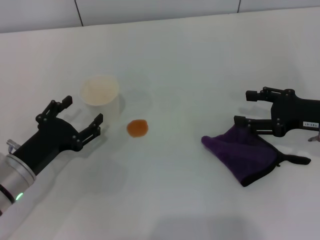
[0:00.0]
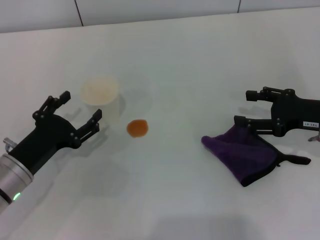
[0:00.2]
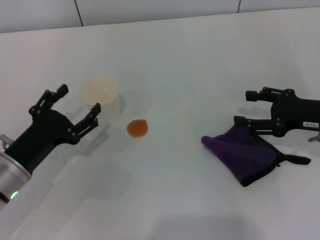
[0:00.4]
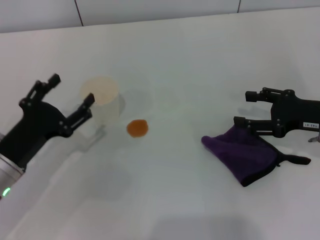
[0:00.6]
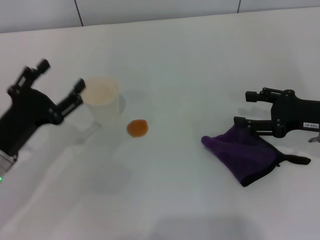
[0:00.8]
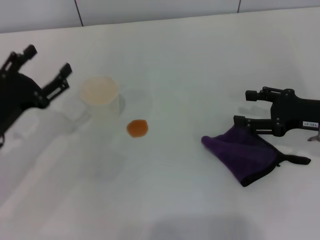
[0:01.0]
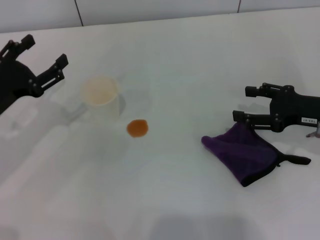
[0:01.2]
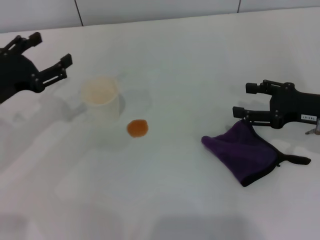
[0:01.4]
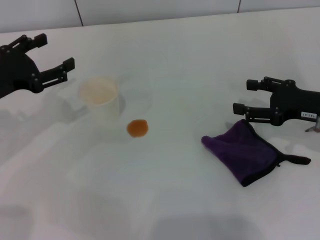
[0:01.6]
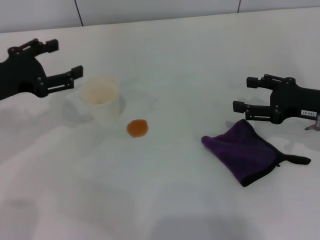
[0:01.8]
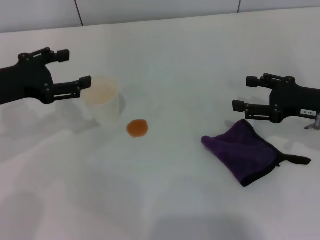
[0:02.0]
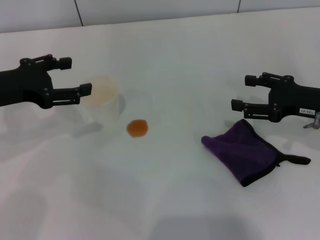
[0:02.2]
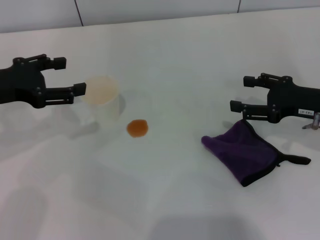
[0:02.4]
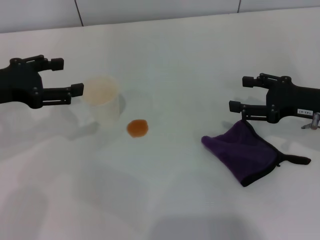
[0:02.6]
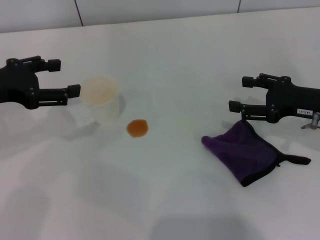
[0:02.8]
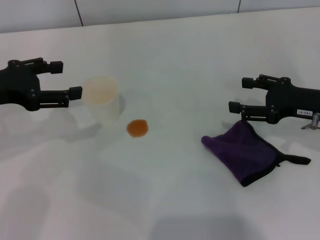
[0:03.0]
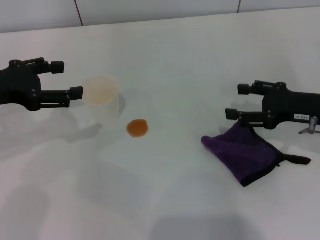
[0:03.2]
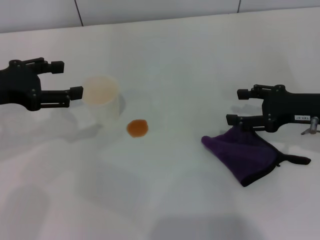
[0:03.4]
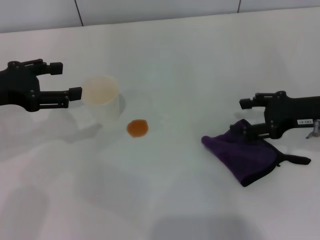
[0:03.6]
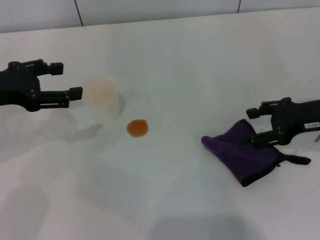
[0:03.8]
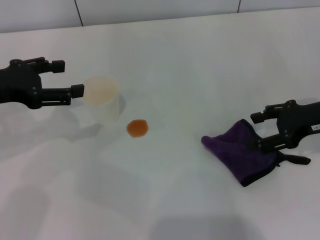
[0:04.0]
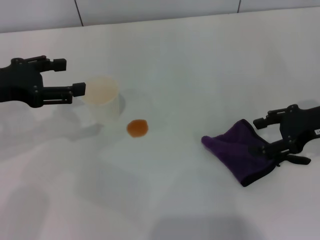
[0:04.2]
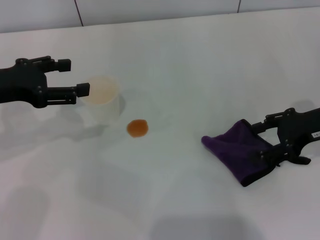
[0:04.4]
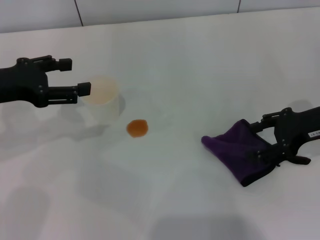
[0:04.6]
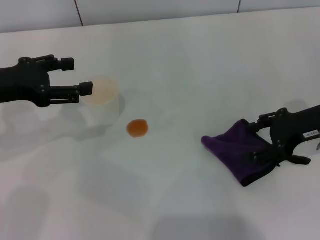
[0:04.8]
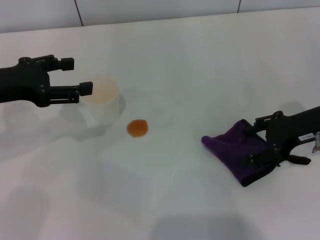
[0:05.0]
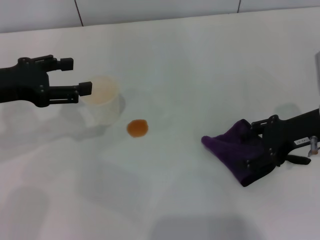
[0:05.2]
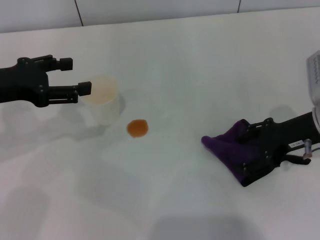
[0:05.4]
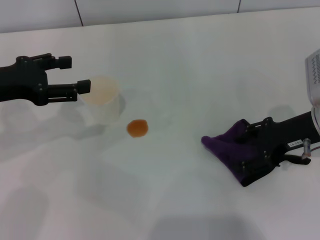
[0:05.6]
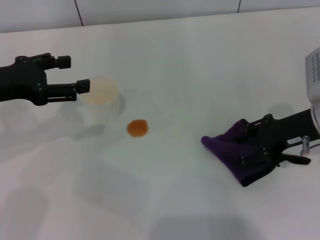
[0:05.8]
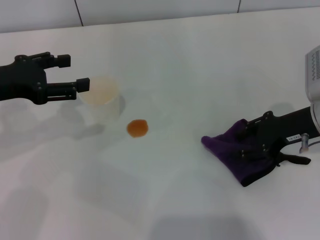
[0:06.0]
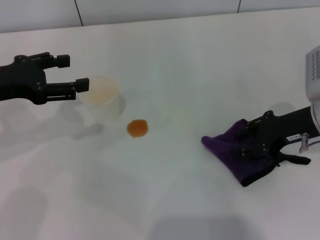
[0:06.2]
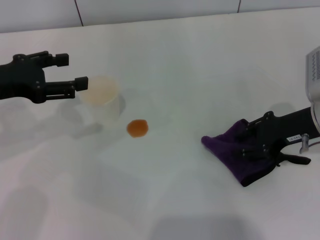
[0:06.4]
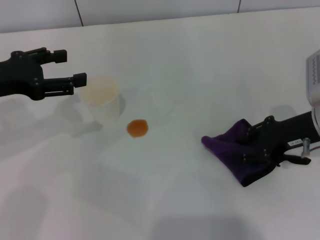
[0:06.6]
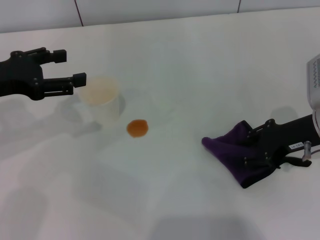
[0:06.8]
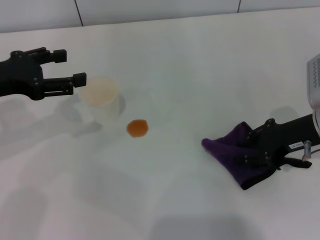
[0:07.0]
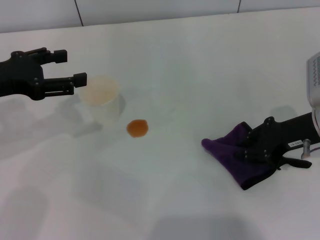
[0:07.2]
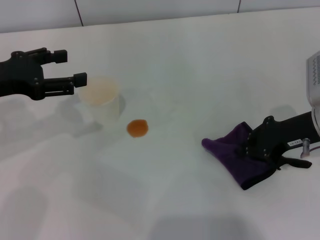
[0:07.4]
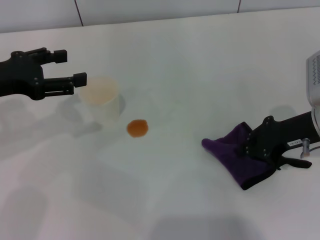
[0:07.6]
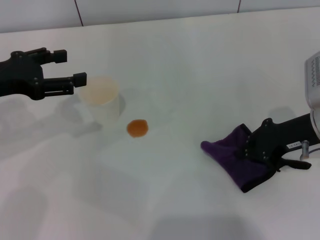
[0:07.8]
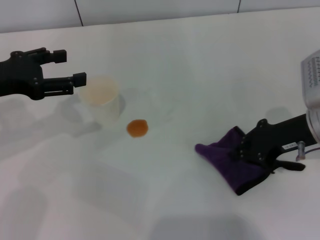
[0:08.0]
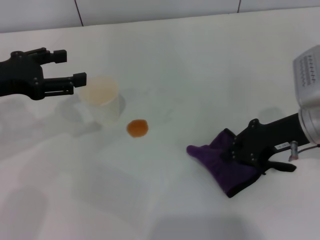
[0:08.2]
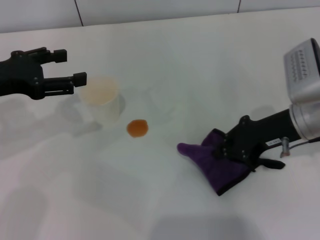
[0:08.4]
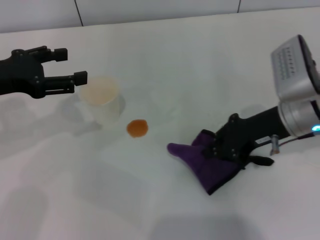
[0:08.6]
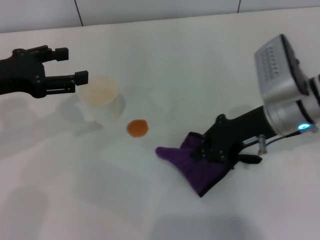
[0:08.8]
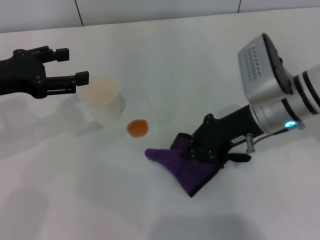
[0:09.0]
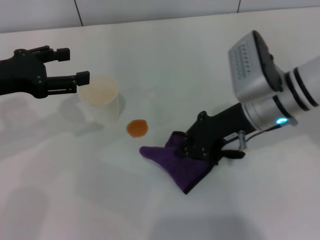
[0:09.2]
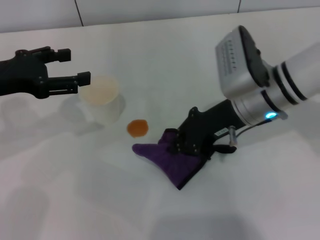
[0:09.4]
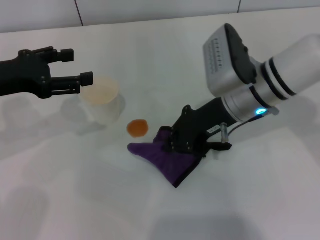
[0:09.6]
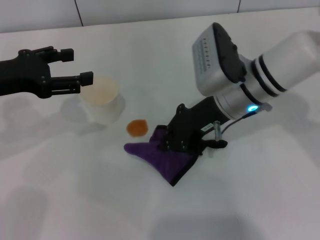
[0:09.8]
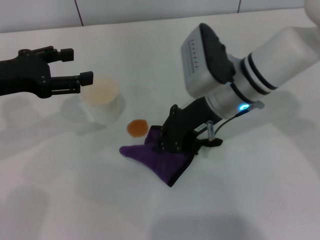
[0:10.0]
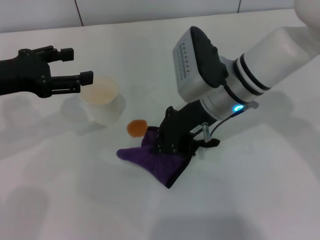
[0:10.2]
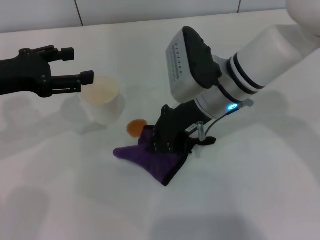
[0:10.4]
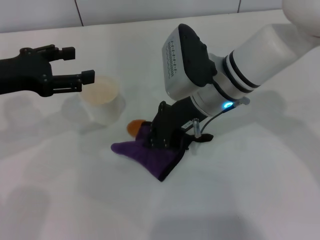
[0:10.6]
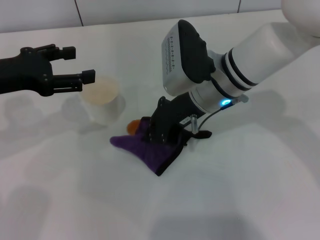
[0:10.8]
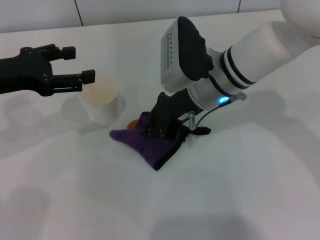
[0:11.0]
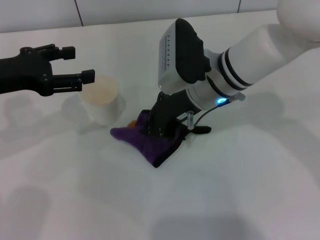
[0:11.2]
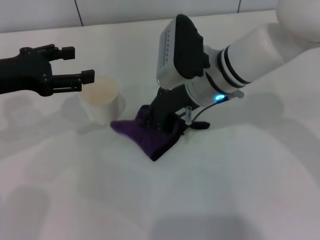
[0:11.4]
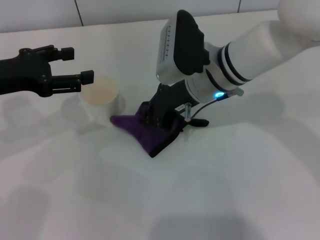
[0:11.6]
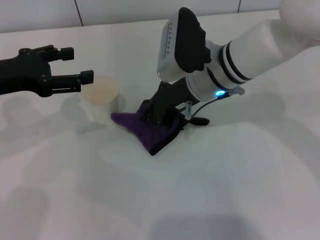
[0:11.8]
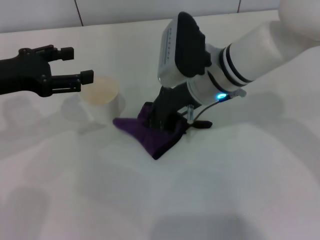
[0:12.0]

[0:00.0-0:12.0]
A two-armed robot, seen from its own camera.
Step, 0:00.0 to 0:07.2: Grasp the rag with the right gripper.
0:00.0 to 0:01.6: The left gripper moves upward and forward, about 15 cm.
0:04.4 to 0:06.0: There are only small adjustments of the grippers.
0:06.0 to 0:07.6: The right gripper closes up.
0:07.6 to 0:09.0: The right gripper travels to the left by roughly 10 cm.
0:09.0 to 0:10.4: The right gripper heads to the left, covering about 10 cm.
0:10.4 to 0:12.0: There are only small adjustments of the grippers.

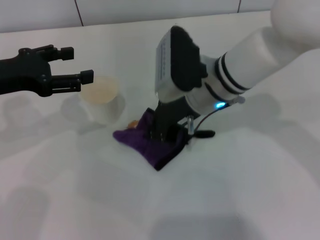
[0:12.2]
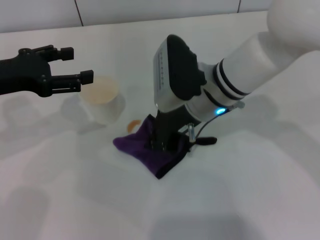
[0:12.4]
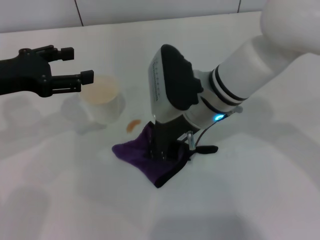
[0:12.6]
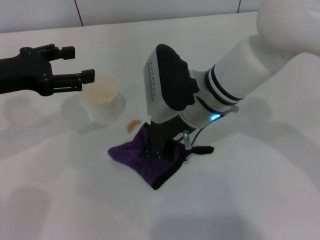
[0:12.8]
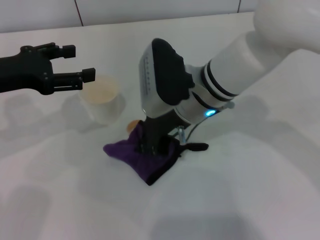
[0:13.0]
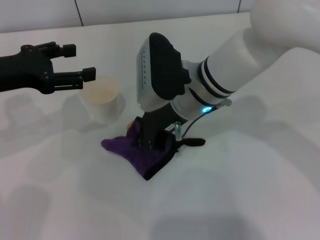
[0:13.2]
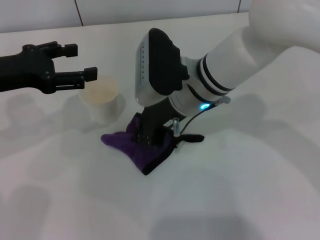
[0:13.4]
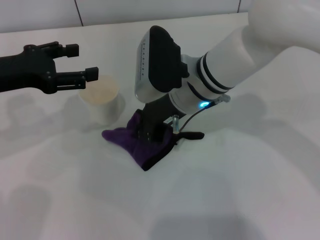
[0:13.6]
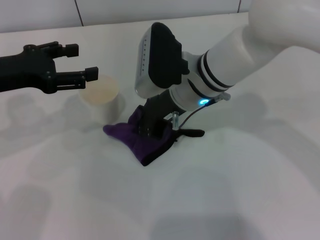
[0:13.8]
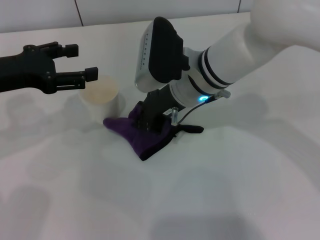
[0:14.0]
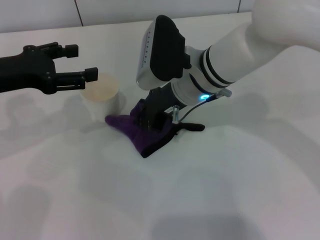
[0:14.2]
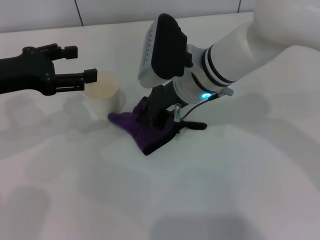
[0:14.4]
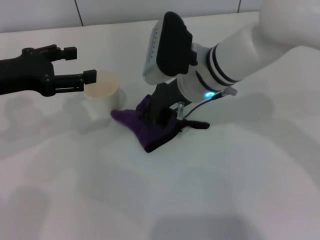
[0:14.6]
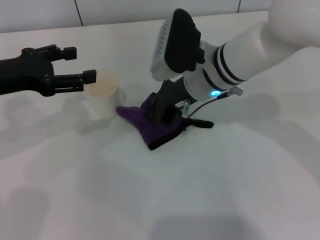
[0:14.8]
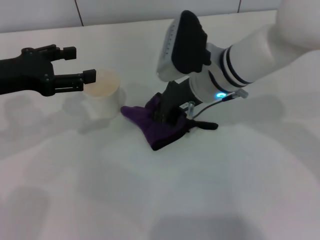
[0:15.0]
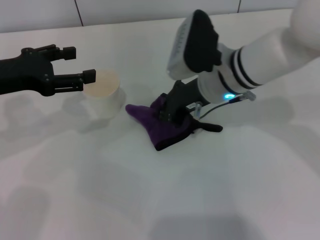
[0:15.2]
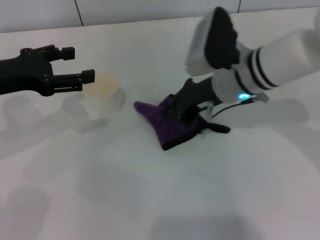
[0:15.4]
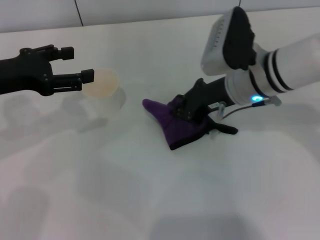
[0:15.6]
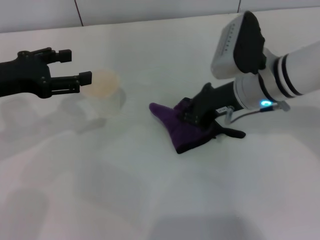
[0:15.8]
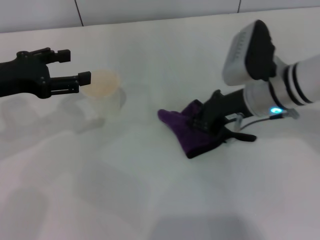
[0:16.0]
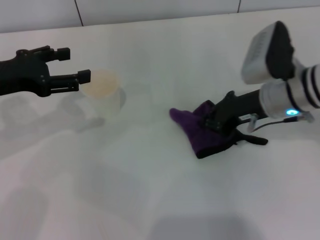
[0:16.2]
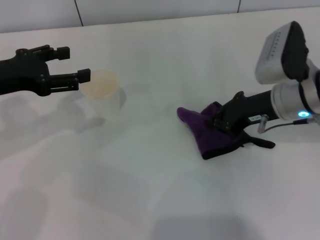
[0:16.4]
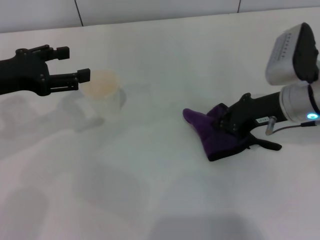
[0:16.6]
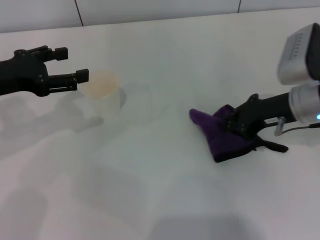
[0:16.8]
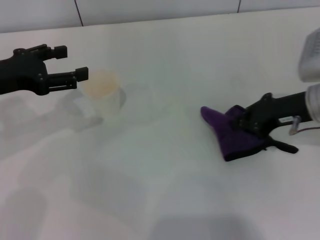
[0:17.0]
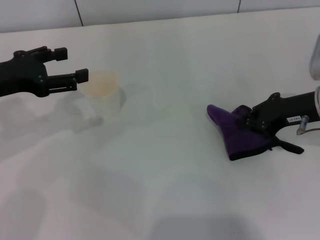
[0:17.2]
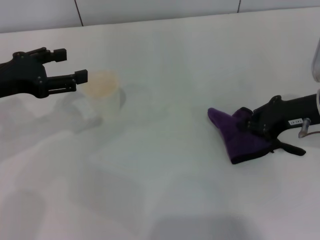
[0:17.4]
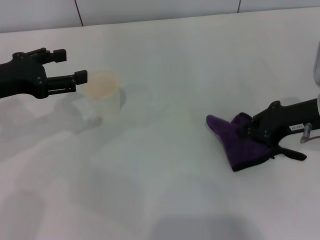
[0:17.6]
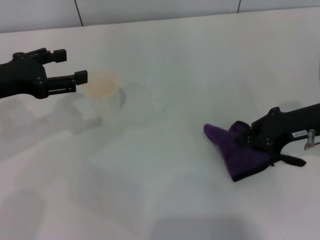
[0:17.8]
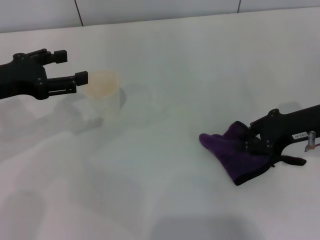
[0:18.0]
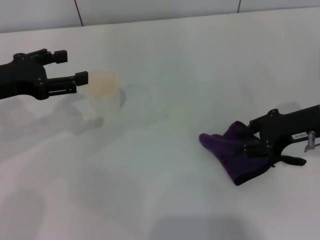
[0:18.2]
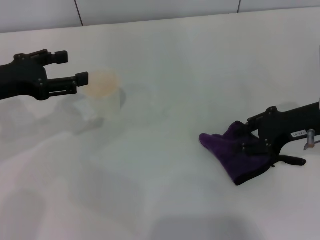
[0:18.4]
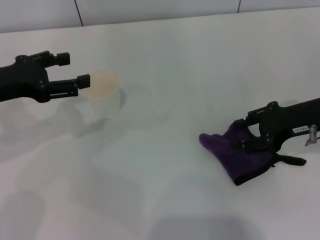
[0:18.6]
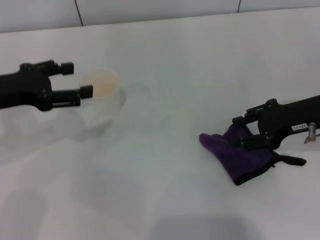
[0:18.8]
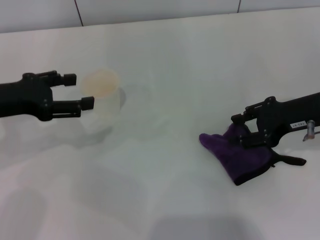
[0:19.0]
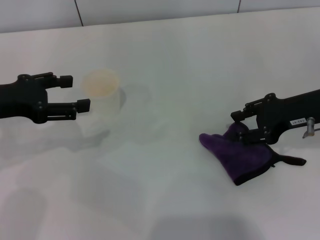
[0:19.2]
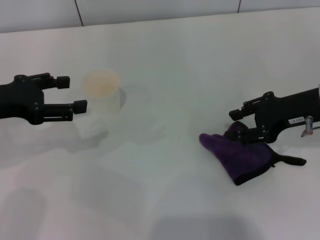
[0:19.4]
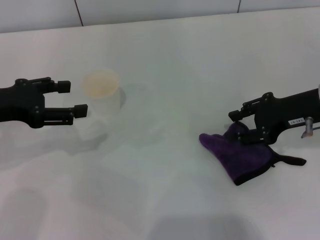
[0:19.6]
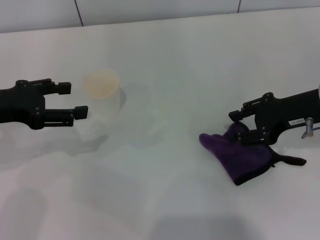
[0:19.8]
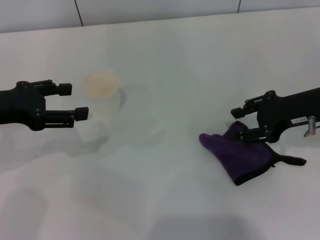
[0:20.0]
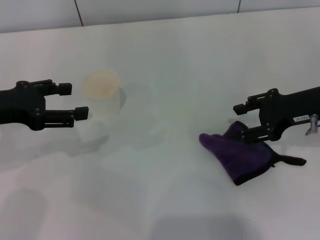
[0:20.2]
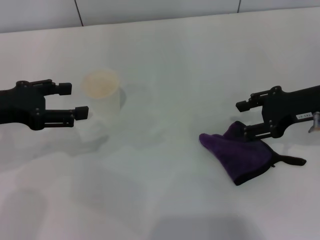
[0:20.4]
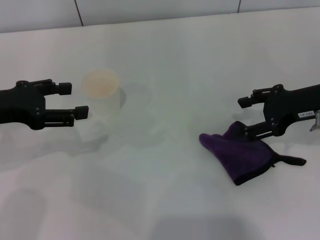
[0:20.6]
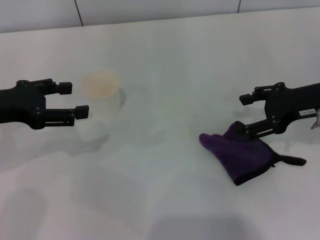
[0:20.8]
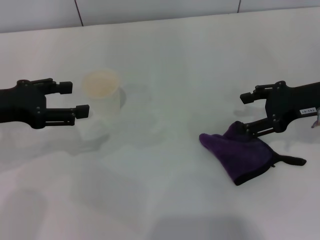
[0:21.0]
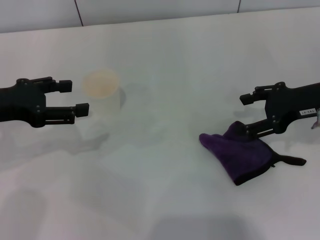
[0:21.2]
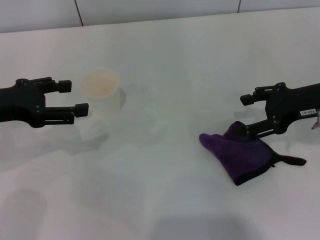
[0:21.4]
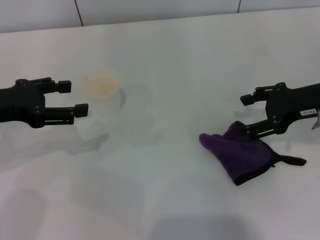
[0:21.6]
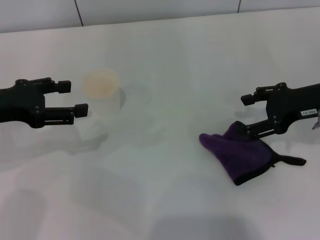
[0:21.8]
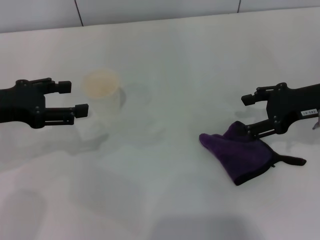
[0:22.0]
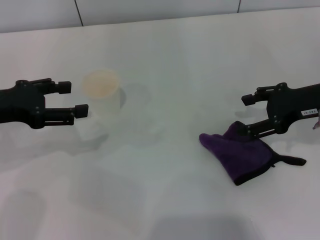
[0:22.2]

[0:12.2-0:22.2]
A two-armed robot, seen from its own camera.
Step, 0:12.2 to 0:15.4: Wipe the stains off the table with the right gripper.
Step, 0:15.8 to 0:19.0: Place the rag on the table with the right gripper.
0:12.2 to 0:15.0: There are only small adjustments of the grippers.
0:15.0 to 0:16.4: The right gripper goes about 10 cm to the right.
0:16.4 to 0:18.0: The right gripper goes roughly 5 cm to the right.
0:18.0 to 0:19.4: The right gripper opens.
0:19.4 to 0:20.8: The right gripper opens.
0:20.8 to 0:22.2: Both grippers stay about where they are.
